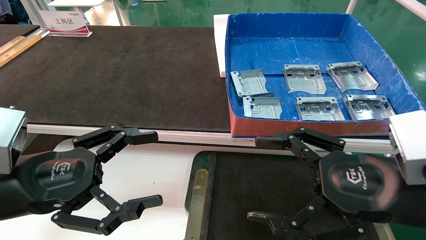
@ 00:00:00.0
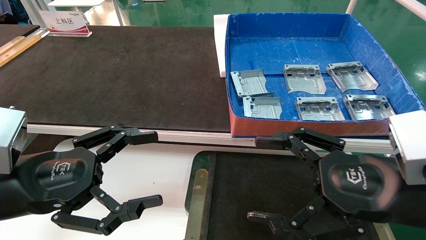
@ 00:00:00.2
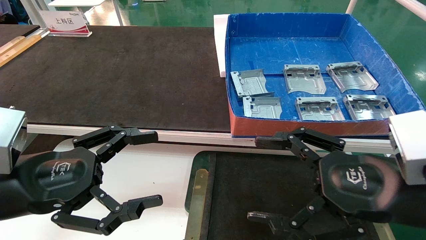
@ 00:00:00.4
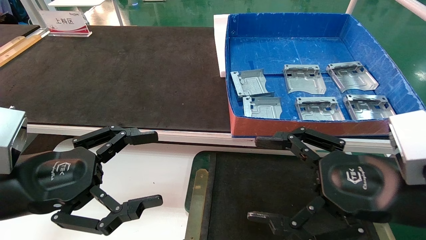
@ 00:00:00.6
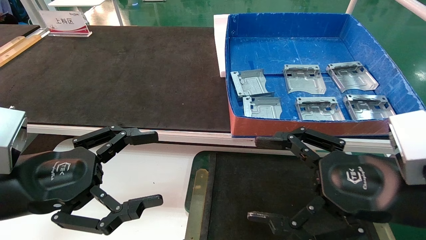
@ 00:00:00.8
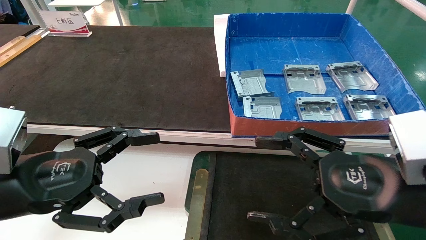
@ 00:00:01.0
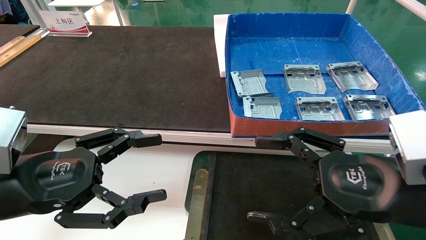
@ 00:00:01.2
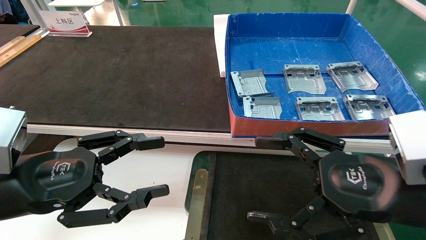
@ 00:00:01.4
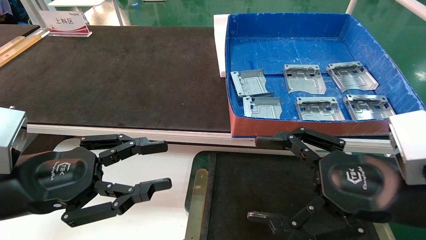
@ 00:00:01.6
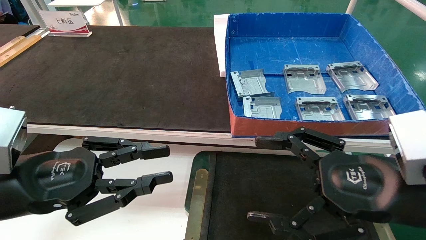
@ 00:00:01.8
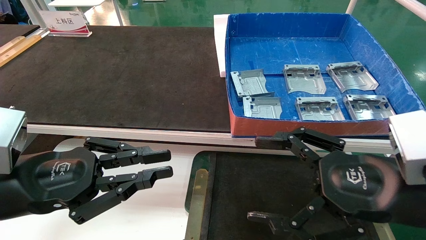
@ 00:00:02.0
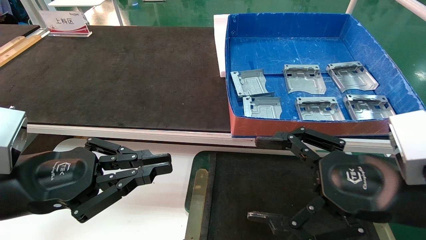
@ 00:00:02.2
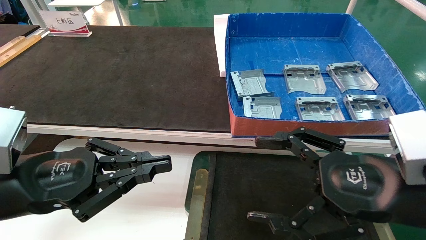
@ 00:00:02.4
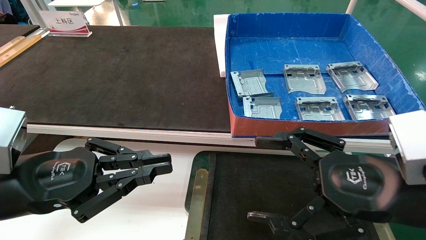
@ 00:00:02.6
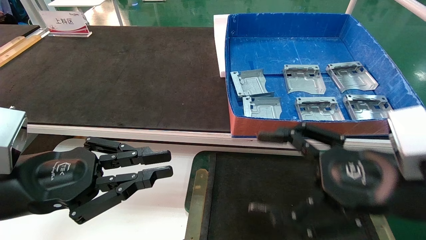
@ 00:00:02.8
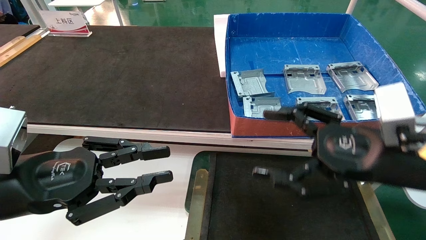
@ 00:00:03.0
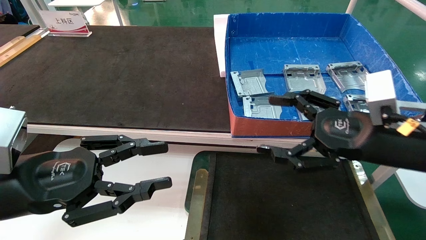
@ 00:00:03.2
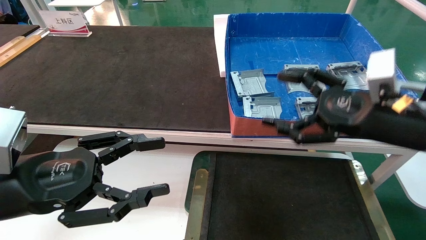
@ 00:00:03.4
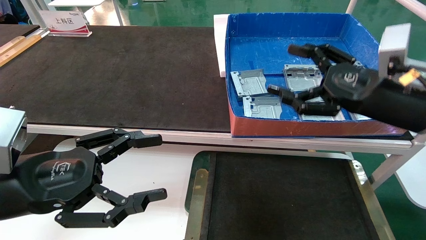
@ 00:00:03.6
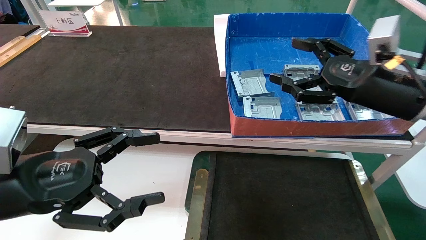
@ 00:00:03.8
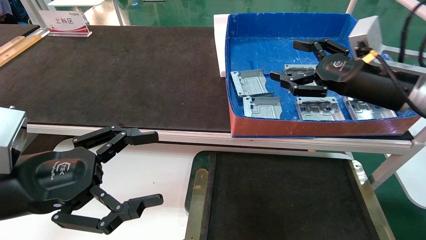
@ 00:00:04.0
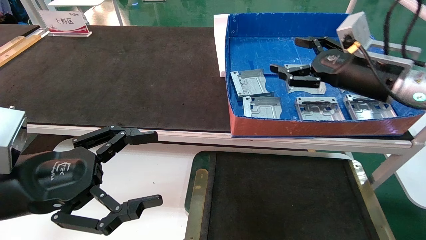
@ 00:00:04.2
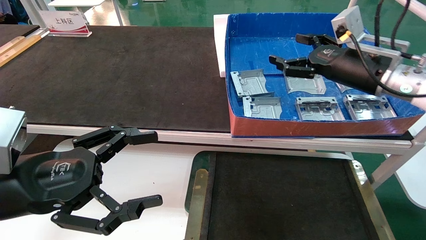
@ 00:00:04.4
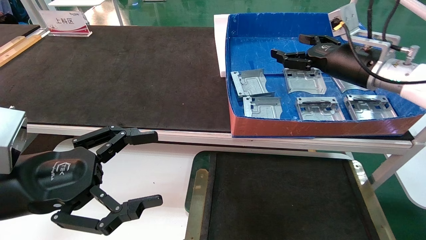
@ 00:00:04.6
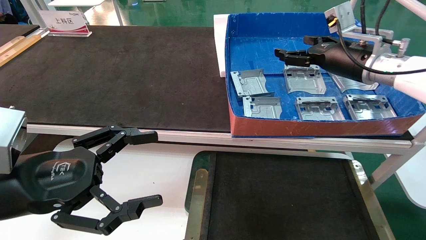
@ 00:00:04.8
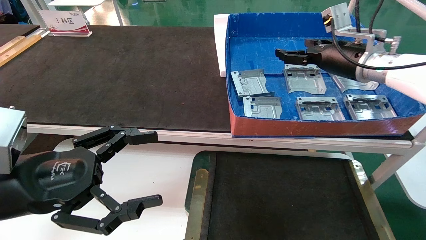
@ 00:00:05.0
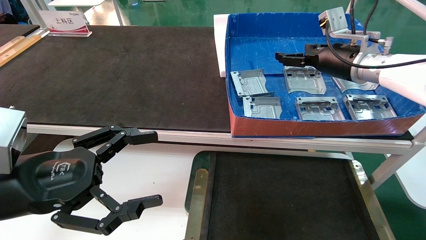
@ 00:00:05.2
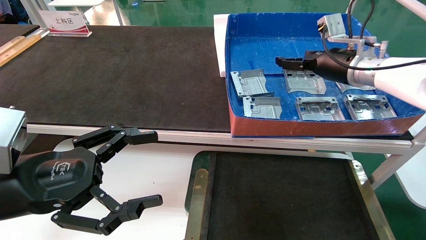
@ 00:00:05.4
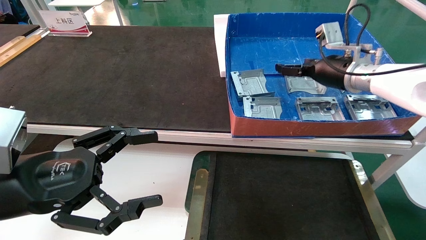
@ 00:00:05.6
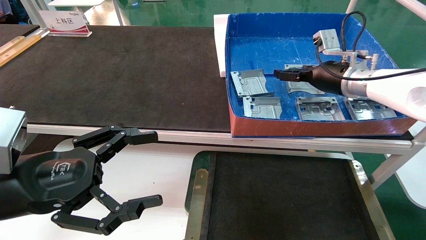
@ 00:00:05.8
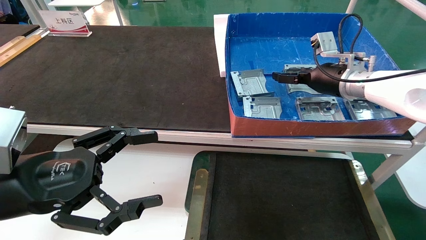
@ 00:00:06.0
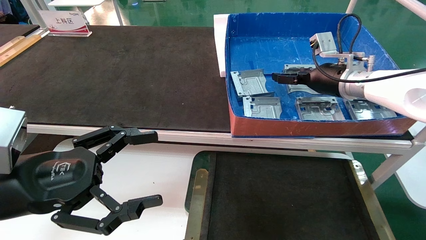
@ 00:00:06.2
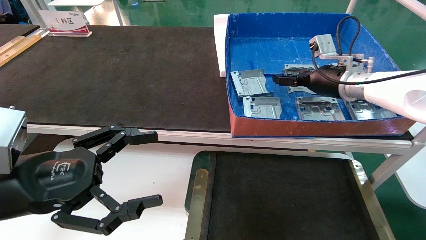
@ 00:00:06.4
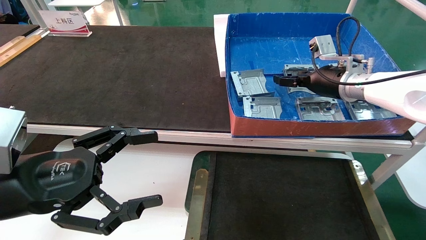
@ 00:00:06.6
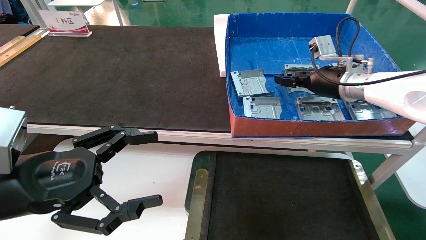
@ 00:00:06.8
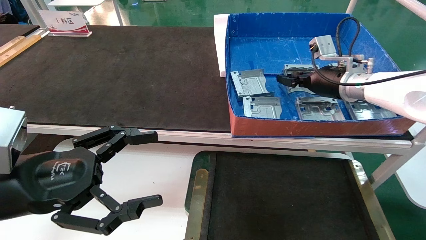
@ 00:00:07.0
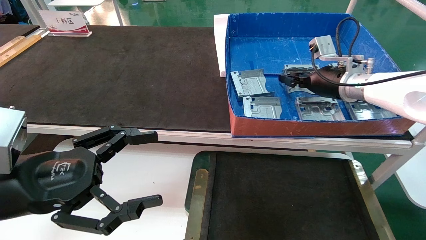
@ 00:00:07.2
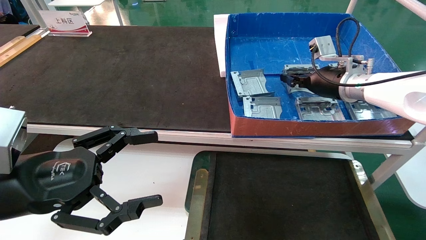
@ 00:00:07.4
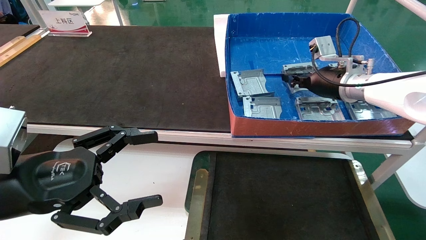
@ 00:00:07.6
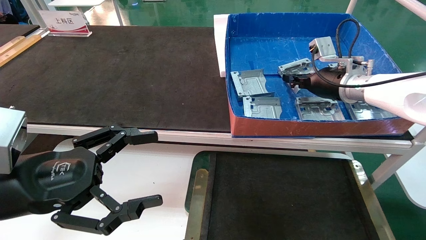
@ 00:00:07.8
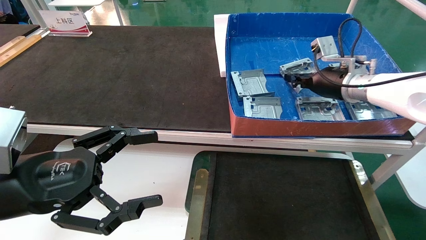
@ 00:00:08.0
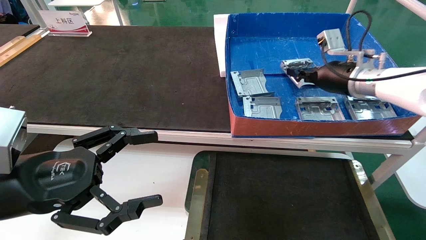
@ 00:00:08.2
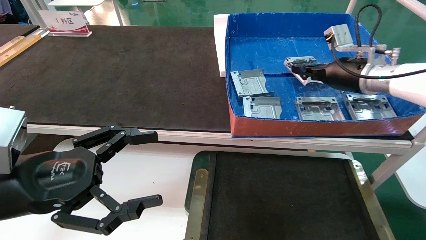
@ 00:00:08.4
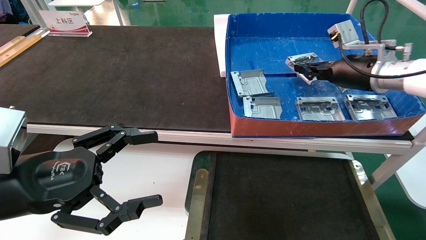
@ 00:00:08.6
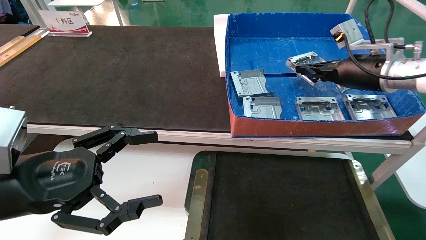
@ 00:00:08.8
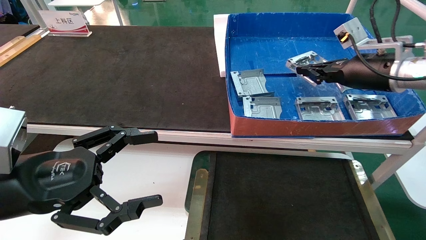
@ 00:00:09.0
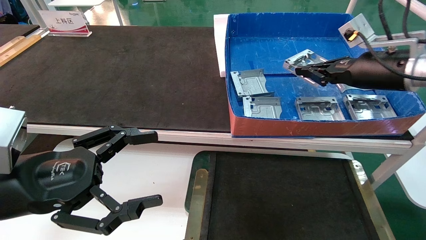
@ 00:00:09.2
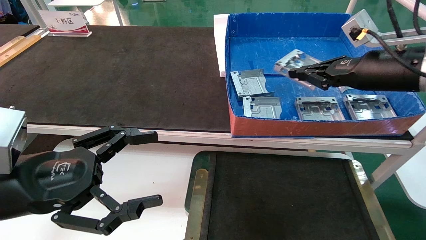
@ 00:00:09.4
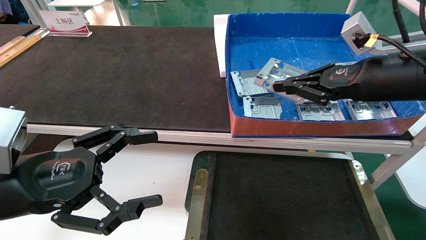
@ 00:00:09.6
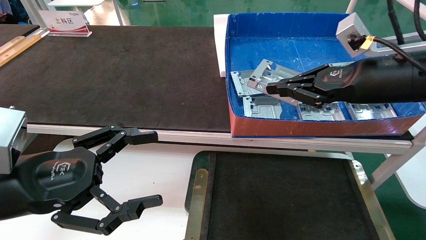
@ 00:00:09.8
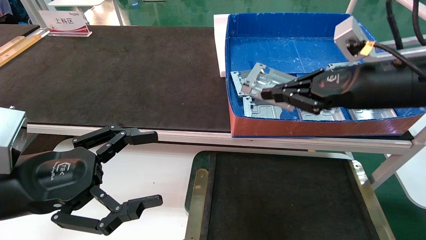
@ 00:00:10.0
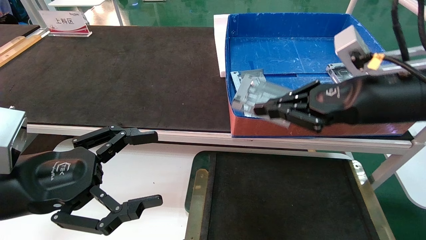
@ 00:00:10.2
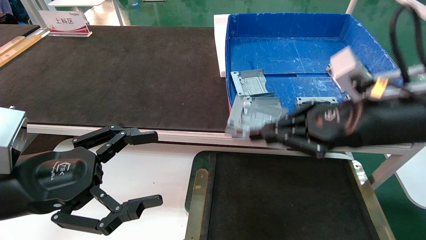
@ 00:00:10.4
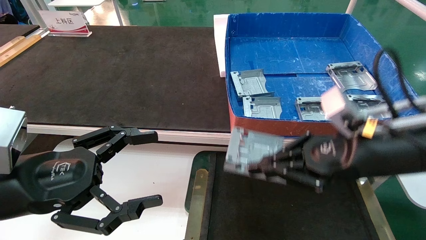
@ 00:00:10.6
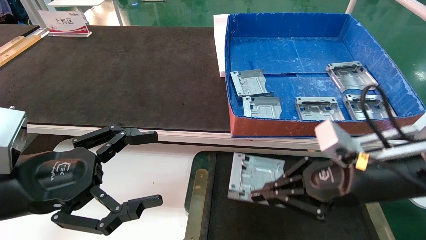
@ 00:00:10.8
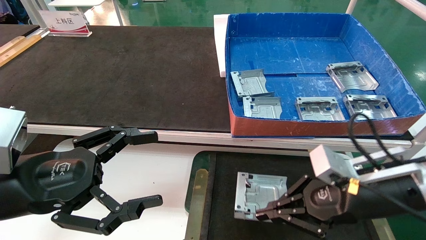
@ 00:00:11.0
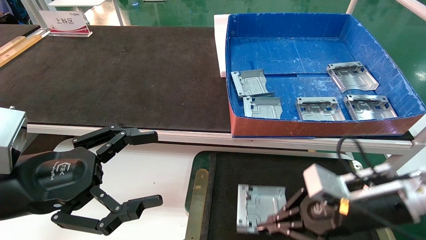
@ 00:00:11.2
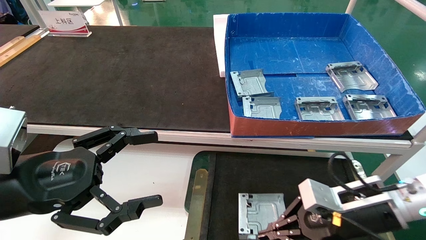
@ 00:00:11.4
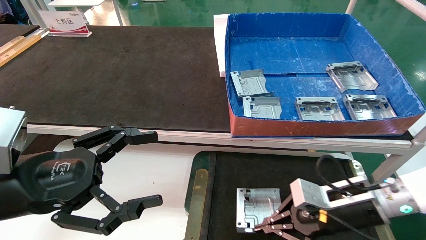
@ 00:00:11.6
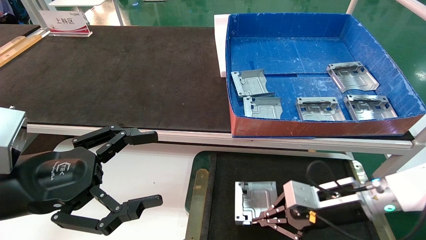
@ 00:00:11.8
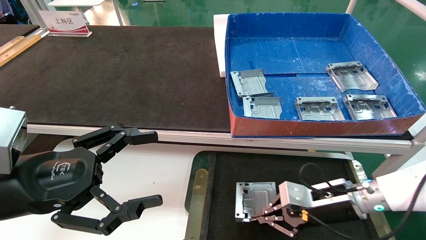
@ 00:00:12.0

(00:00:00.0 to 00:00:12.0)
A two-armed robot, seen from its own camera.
Task of the whole recording: pick up parts and place them into a black container.
Step, 00:00:03.2 - 00:00:07.8: Pick up the hard drive bracket from the feeding area.
00:00:00.0 - 00:00:01.6: The left gripper closes up.
00:00:01.6 - 00:00:03.0: The right gripper goes some 5 cm forward. The left gripper closes.
00:00:03.0 - 00:00:04.4: The right gripper goes approximately 20 cm forward and upward; the left gripper opens.
00:00:04.4 - 00:00:06.0: The right gripper is displaced forward by roughly 5 cm.
00:00:06.0 - 00:00:07.6: The right gripper closes up.
00:00:07.6 - 00:00:09.0: The right gripper shifts about 5 cm backward.
00:00:09.0 - 00:00:10.4: The right gripper heads backward and to the left, covering some 15 cm.
00:00:10.4 - 00:00:12.0: The right gripper goes roughly 20 cm downward and forward.

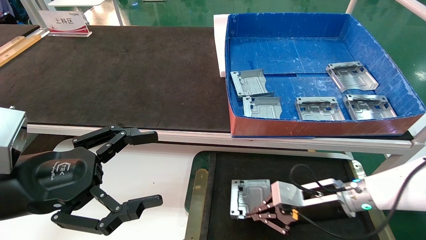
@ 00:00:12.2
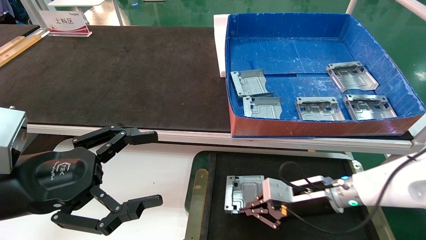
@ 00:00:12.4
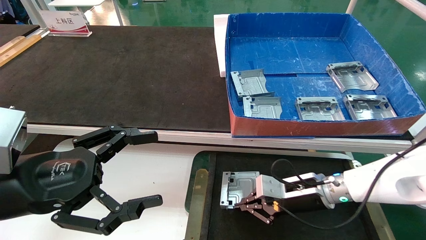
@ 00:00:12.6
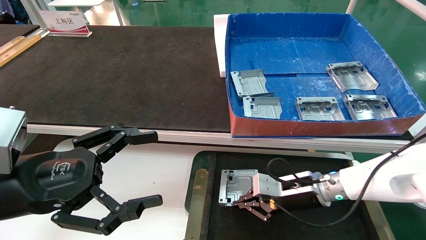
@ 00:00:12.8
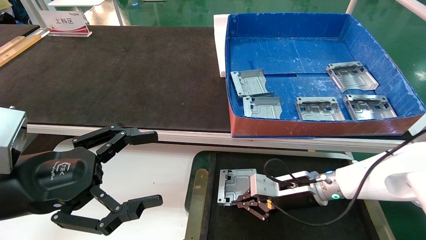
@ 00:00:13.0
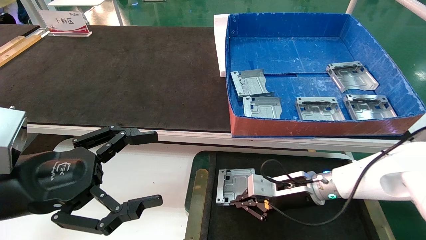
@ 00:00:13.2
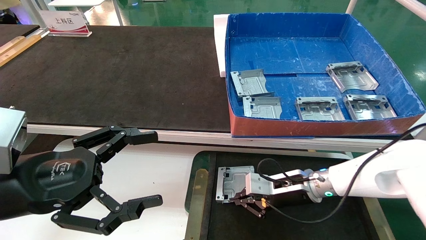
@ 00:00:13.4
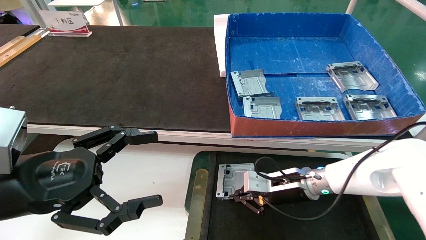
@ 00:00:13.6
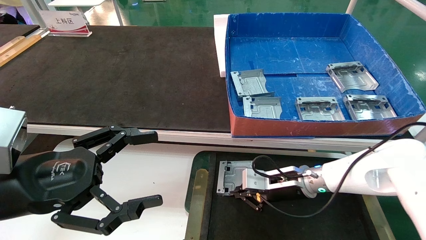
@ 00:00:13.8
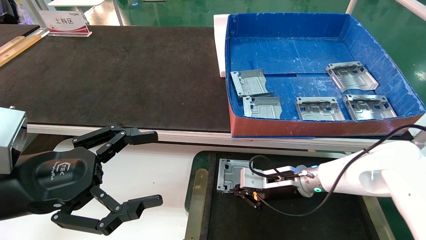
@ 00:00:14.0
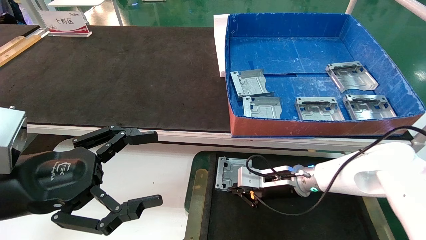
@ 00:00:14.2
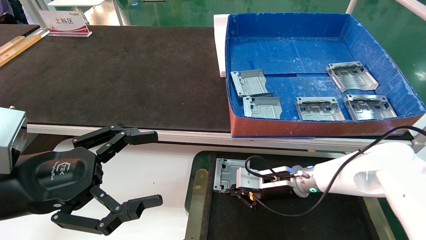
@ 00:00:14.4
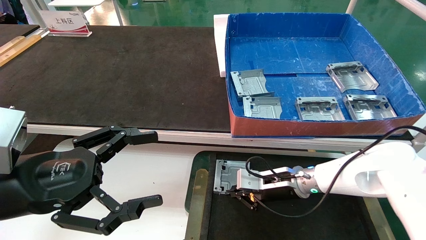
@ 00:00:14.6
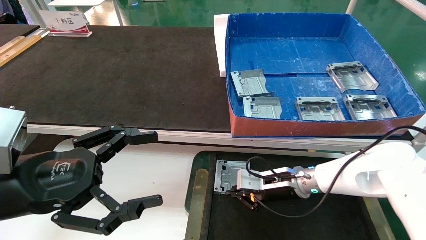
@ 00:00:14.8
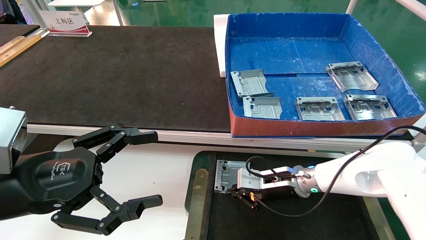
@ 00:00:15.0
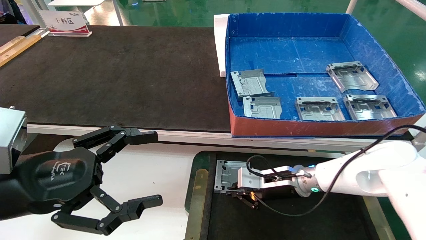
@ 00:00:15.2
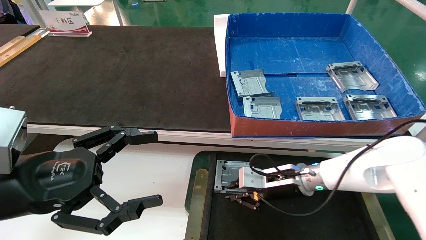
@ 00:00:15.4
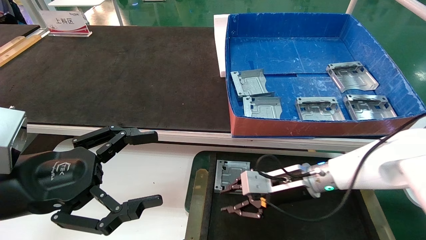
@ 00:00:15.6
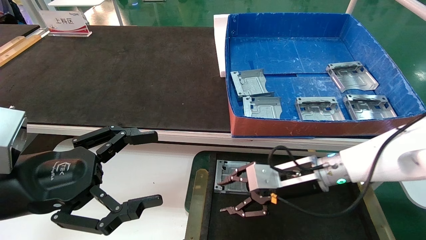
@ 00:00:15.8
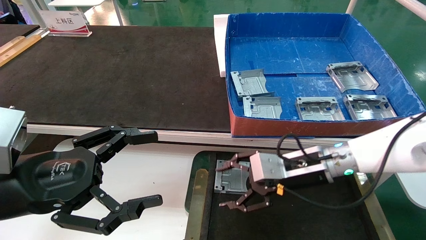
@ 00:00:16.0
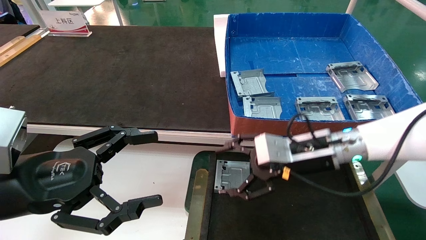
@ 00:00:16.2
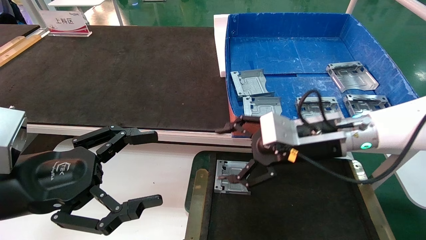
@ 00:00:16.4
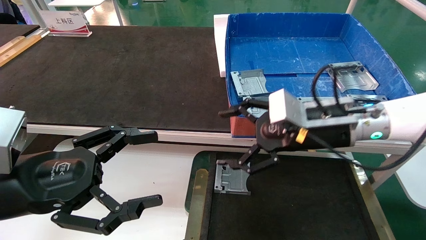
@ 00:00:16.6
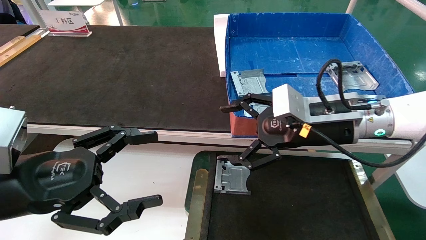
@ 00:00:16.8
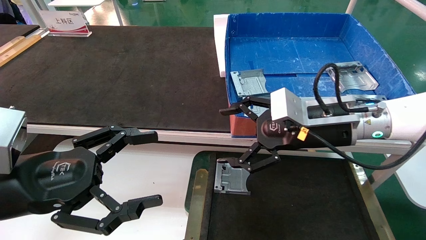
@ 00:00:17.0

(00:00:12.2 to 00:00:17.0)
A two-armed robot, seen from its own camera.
Task of the whole recording: pick up parts and place them into a black container.
Step, 00:00:12.2 - 00:00:15.4: Place the hard drive bracket into the box.
00:00:12.2 - 00:00:13.8: The right gripper heads forward and to the left, covering about 10 cm.
00:00:13.8 - 00:00:15.4: There are only small adjustments of the grippers.
00:00:15.4 - 00:00:17.0: The right gripper moves upward and backward, approximately 20 cm, and opens up.
